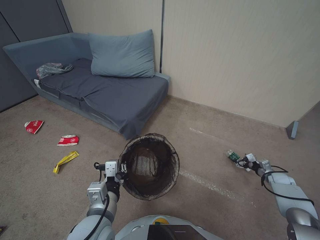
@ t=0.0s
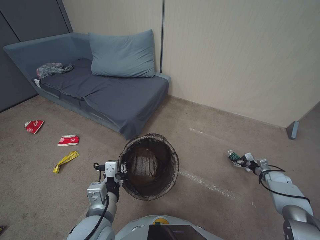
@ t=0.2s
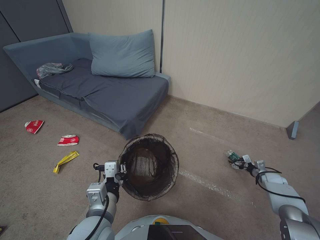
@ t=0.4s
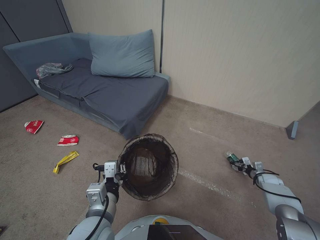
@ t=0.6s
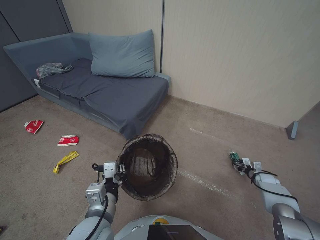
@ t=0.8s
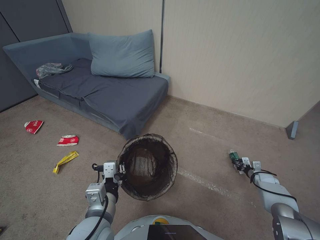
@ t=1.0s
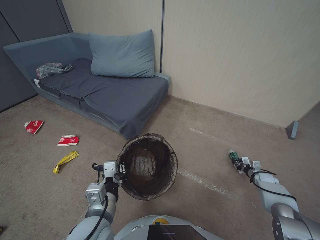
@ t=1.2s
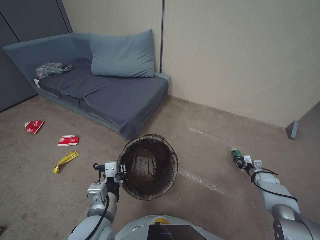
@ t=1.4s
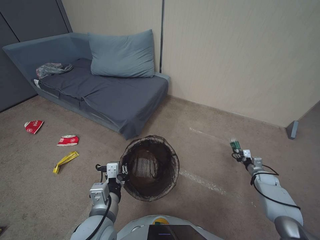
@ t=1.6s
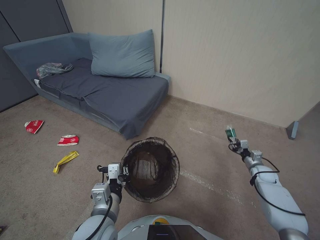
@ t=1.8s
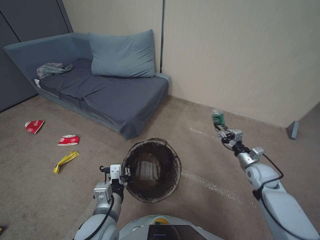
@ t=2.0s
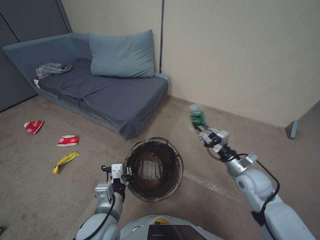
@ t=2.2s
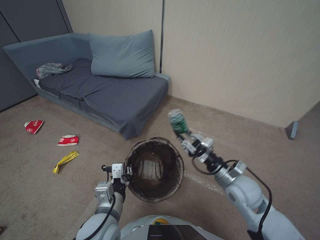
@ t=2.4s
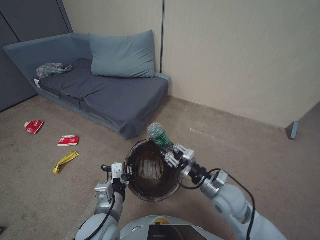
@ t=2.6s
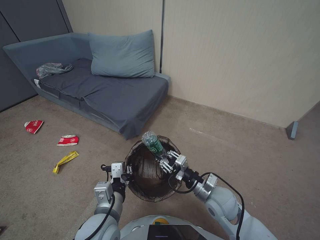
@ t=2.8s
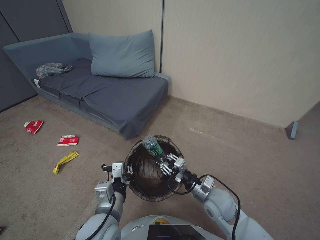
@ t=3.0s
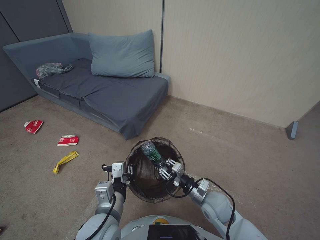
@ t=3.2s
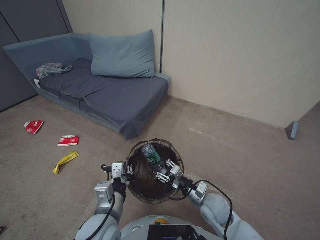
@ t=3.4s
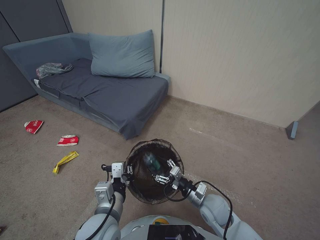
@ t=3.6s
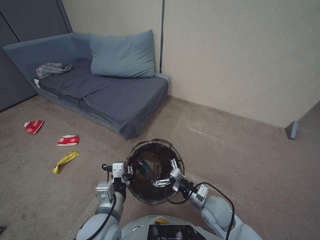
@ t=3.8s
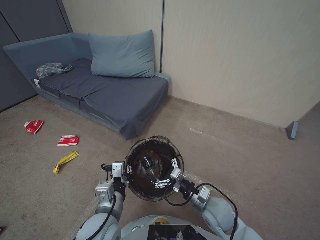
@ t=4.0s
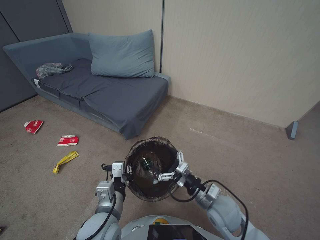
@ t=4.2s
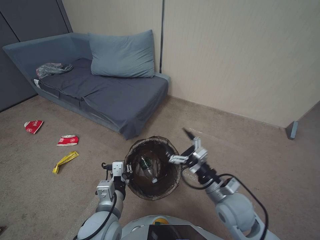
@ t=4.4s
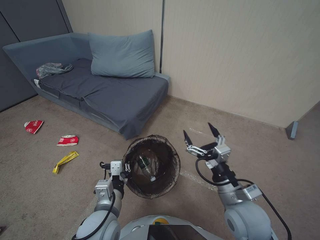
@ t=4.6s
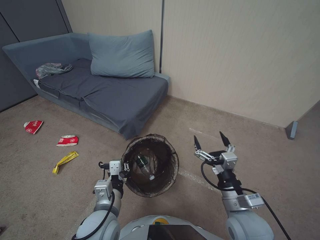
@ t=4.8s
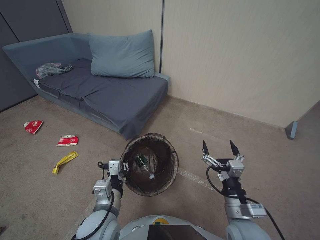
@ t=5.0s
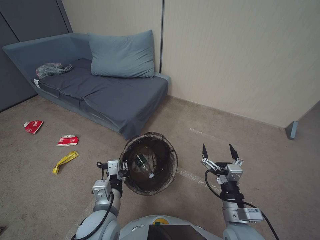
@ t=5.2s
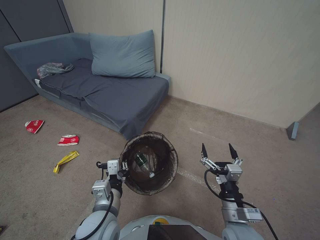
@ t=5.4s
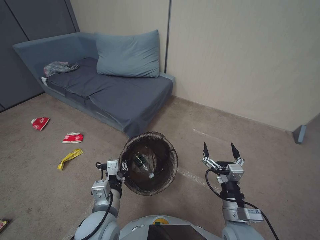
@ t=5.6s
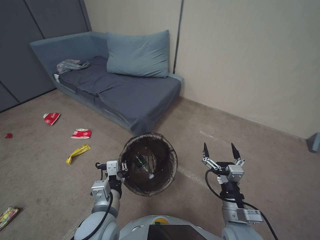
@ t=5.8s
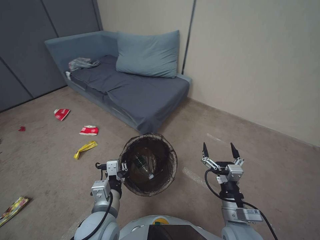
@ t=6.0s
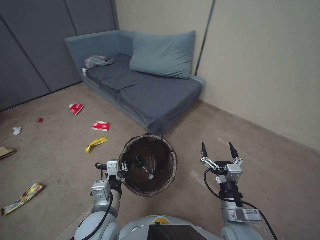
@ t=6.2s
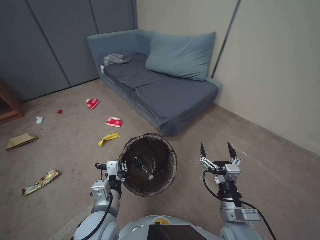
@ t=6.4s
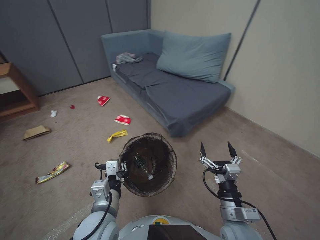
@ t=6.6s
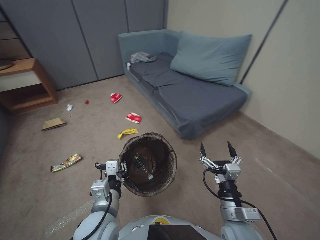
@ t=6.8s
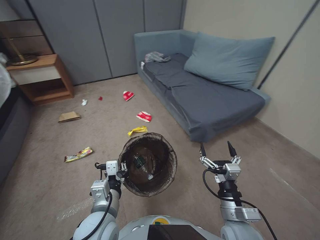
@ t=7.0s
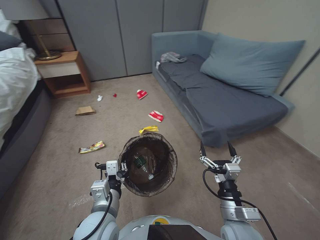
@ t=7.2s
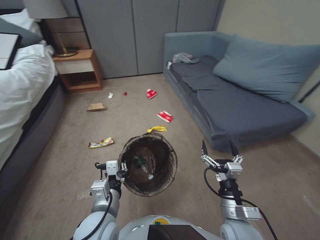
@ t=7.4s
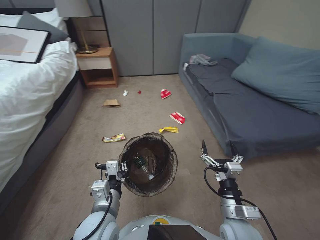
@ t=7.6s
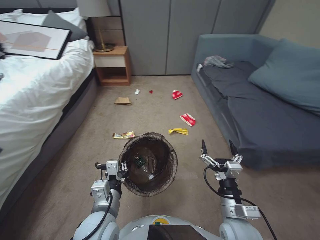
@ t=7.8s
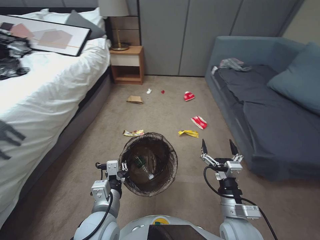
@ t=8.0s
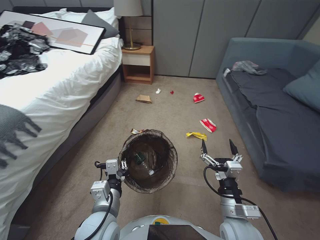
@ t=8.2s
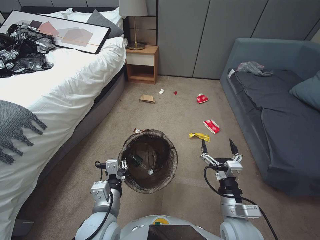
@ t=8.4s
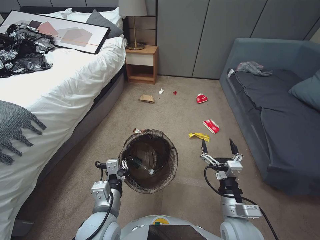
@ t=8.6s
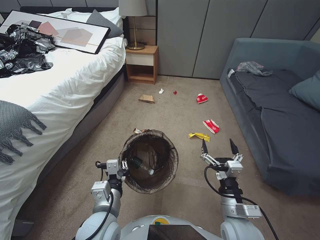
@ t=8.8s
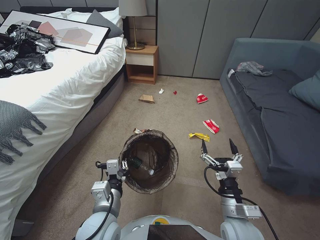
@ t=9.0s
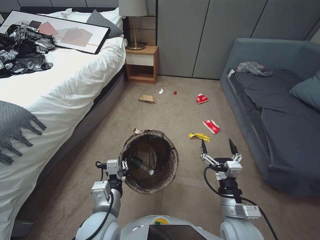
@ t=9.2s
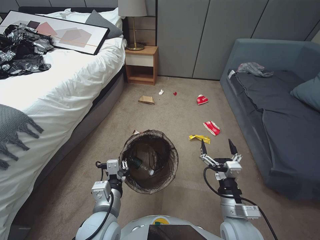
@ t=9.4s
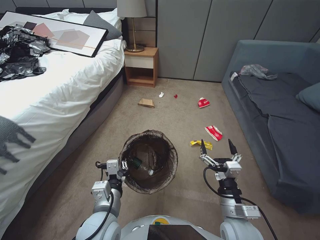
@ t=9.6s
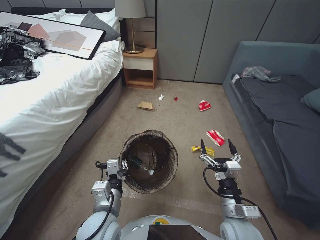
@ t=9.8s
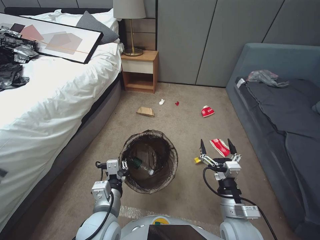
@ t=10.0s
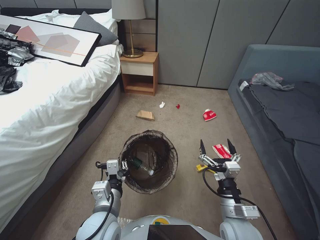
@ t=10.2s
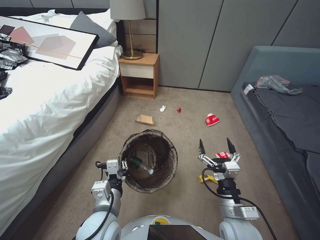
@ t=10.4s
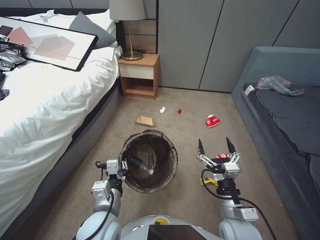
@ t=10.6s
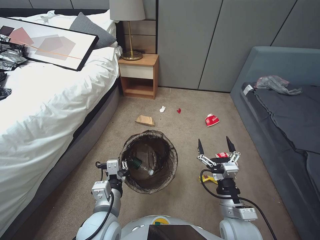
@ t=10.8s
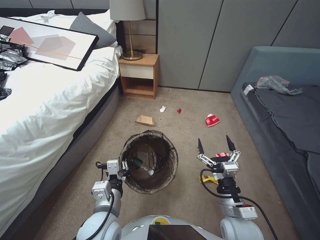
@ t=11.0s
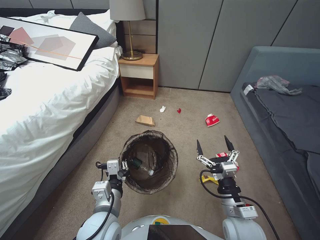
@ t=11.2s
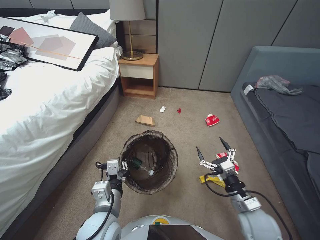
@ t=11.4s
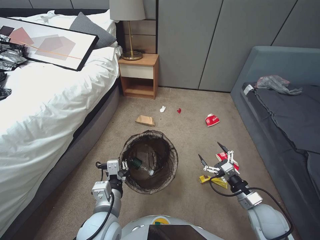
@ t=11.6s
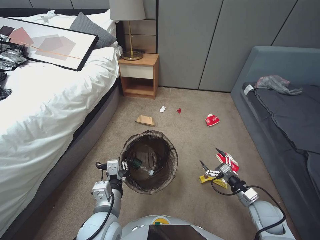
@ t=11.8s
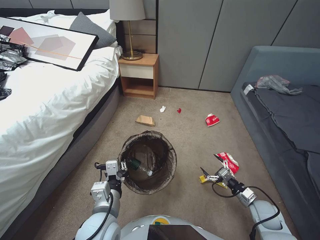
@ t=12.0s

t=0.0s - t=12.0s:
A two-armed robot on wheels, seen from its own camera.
Task of the whole recording: Pick up the trash bin, then pick up the garbage from the floor and place it into the trash bin.
t=0.0s - t=1.6s: The right gripper goes some 5 cm to the left, and closes up.
t=1.6s - t=3.0s: The right gripper moves to the left and upward, roughly 40 cm.
t=3.0s - t=4.4s: The right gripper opens.
t=4.4s - t=6.0s: The right gripper heads backward, covering approximately 5 cm.
t=10.4s - t=12.0s: The right gripper goes about 20 cm to the right and downward.

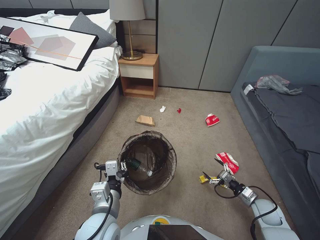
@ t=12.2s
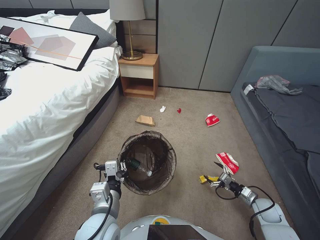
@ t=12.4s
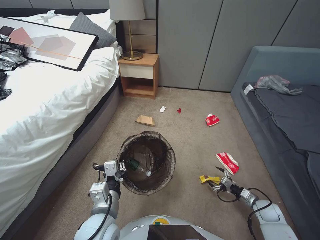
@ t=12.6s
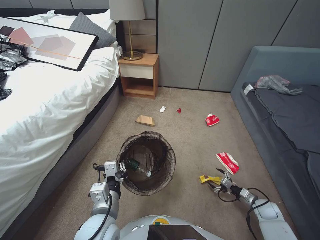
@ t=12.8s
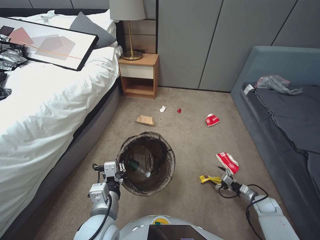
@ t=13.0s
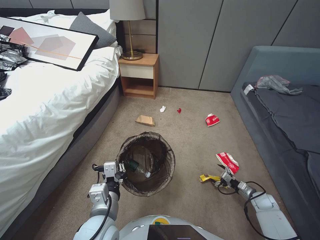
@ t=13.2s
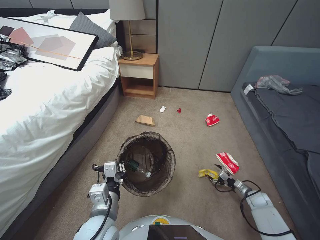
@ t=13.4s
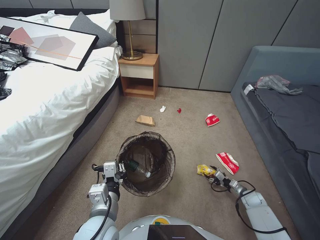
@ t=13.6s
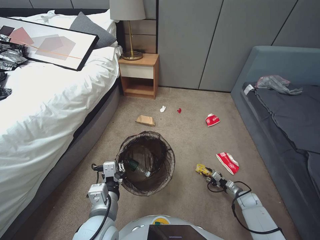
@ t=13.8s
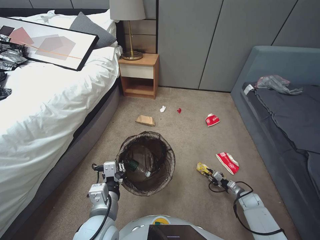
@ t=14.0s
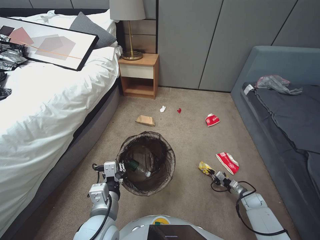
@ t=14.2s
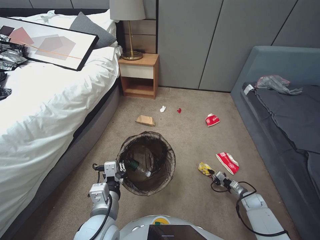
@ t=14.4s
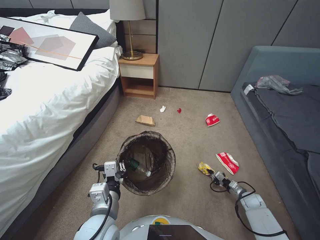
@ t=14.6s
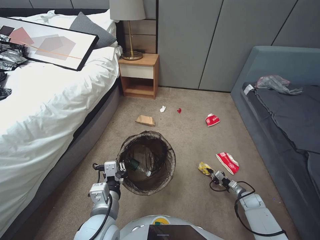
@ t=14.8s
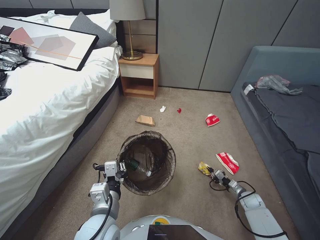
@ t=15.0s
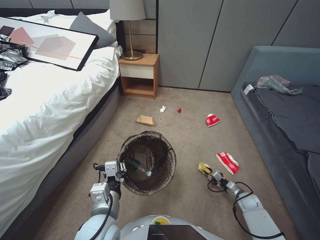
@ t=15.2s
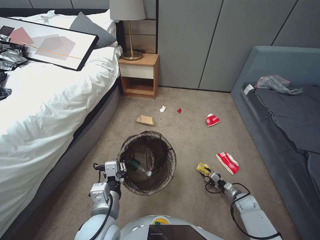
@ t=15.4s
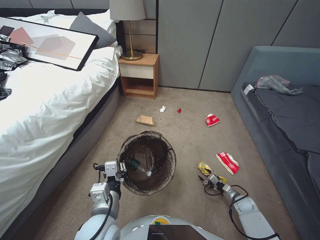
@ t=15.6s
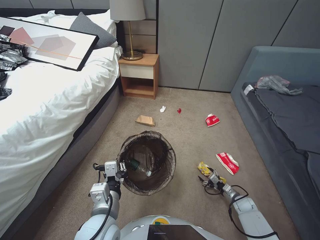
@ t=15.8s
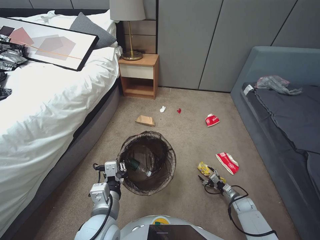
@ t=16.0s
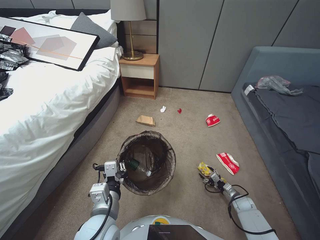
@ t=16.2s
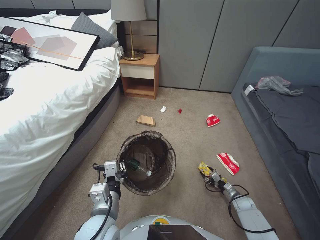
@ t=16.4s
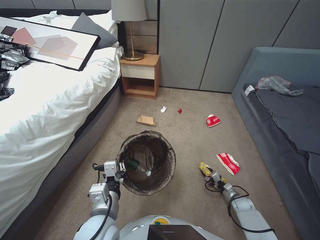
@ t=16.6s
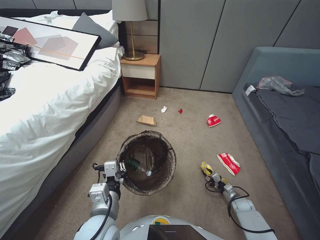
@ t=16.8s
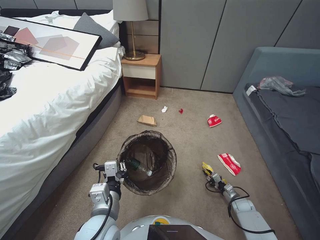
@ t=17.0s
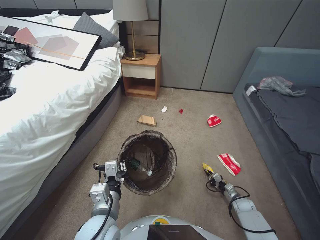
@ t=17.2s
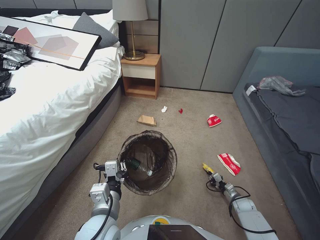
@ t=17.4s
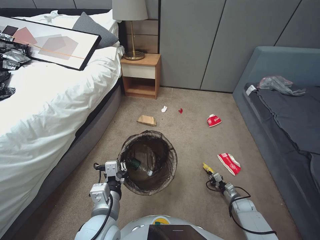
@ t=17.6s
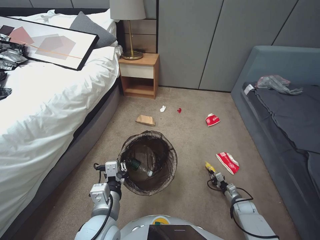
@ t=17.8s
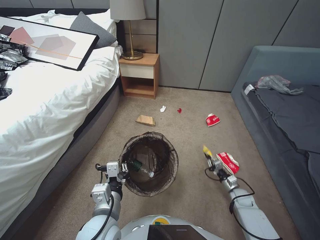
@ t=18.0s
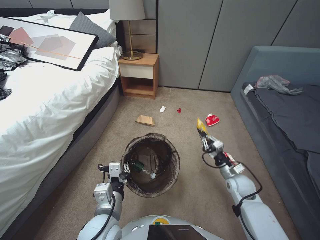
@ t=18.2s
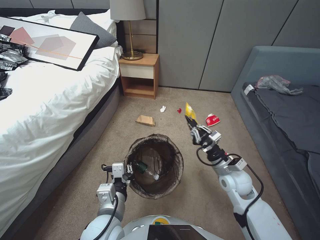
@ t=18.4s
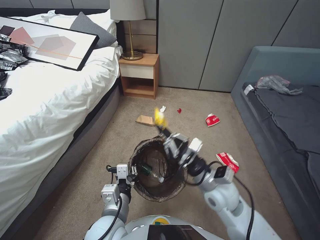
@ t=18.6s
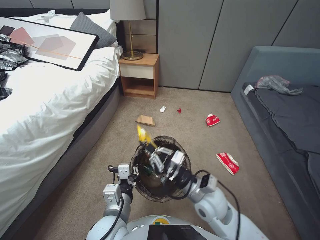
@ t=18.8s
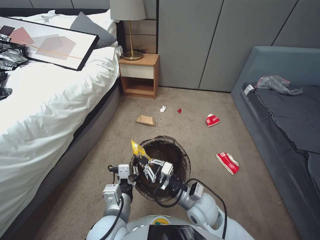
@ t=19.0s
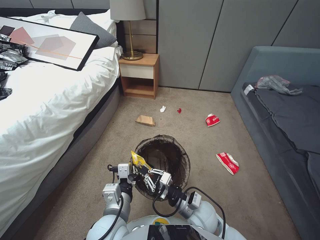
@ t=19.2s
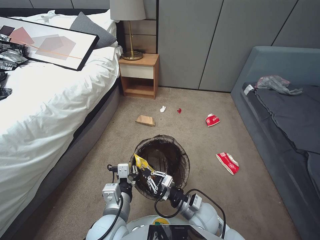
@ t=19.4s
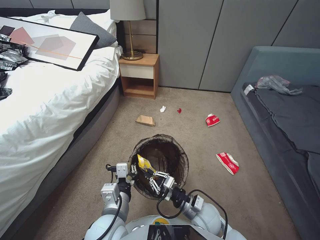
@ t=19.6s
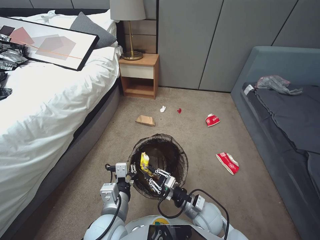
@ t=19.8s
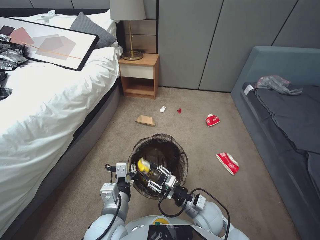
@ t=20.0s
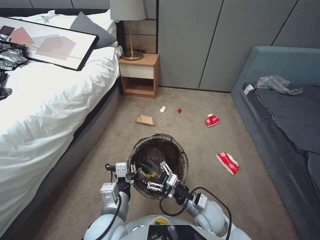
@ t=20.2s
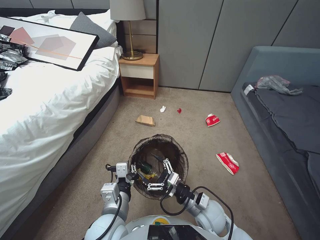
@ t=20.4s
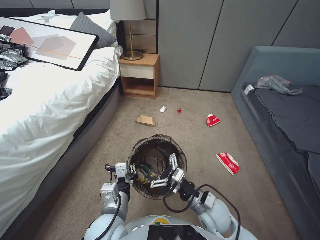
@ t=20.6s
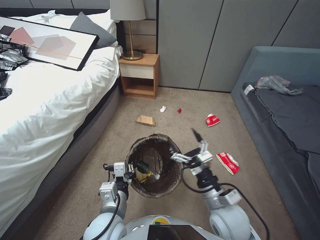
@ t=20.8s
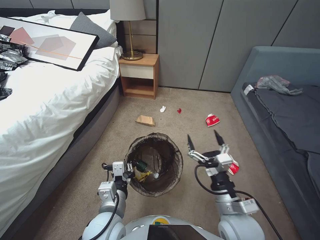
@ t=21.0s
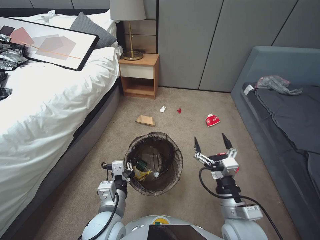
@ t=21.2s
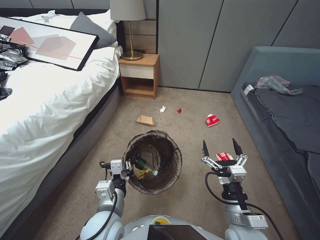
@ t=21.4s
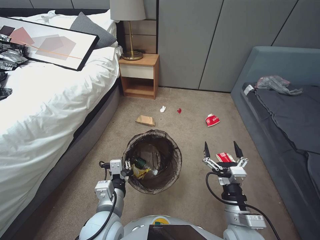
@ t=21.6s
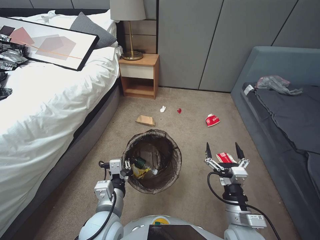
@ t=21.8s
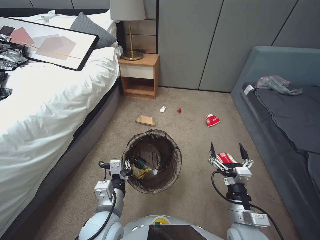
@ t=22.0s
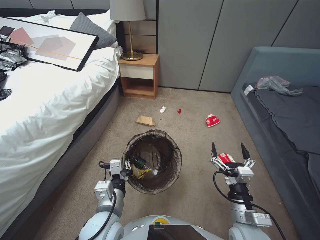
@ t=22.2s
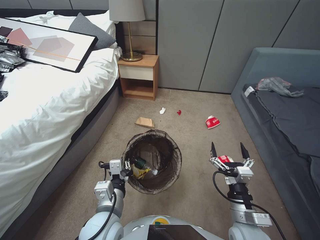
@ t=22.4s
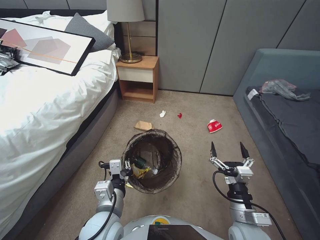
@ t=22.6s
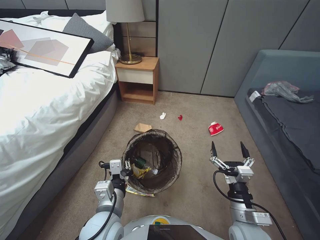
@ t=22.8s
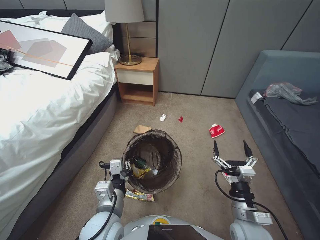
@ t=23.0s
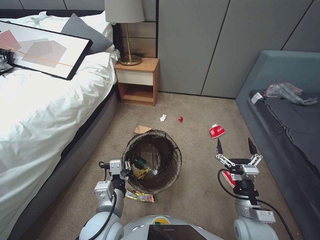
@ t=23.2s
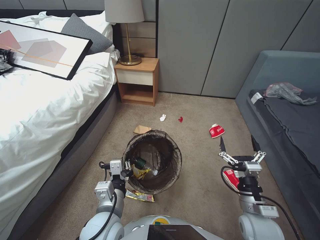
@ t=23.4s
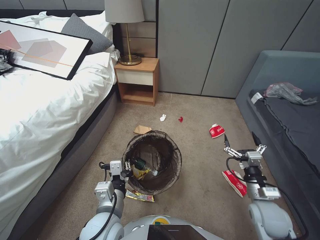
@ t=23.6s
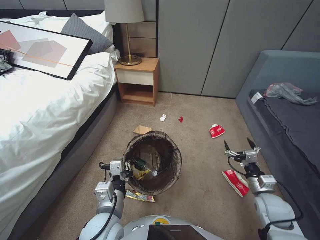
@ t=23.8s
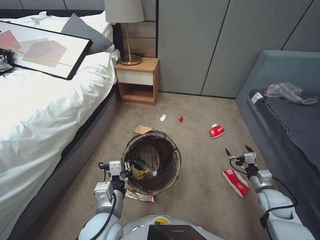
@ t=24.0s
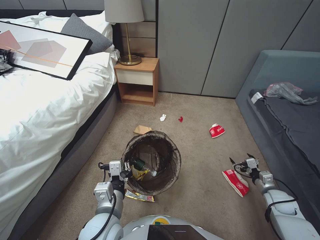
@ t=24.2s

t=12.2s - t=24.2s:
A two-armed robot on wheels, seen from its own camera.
Task of the whole recording: Pick up the trash bin, then pick up the garbage from the floor and place it into the trash bin.
t=12.2s - t=13.8s: The right gripper goes roughly 15 cm downward, forward and to the right, and closes up.
t=13.8s - t=15.2s: The right gripper closes up.
t=15.2s - t=16.6s: The right gripper heads downward, covering some 5 cm, and opens up.
t=16.6s - t=18.2s: The right gripper travels upward by about 10 cm, and closes up.
t=18.2s - t=19.8s: The right gripper shifts some 30 cm to the left and upward.
t=19.8s - t=21.2s: The right gripper travels upward by approximately 10 cm, and opens up.
t=21.2s - t=22.6s: The right gripper shifts by about 5 cm.
t=22.6s - t=24.2s: The right gripper travels to the right, forward and downward by about 25 cm.
